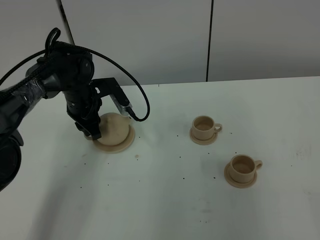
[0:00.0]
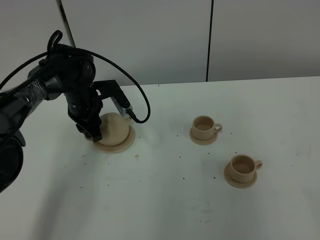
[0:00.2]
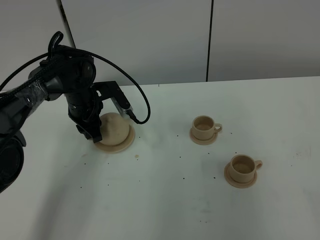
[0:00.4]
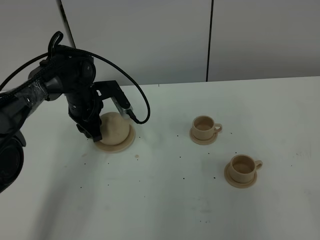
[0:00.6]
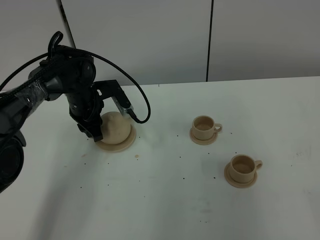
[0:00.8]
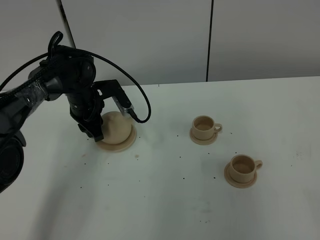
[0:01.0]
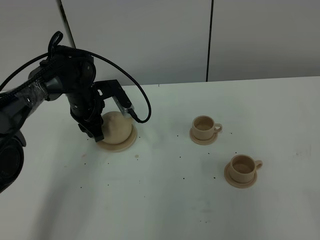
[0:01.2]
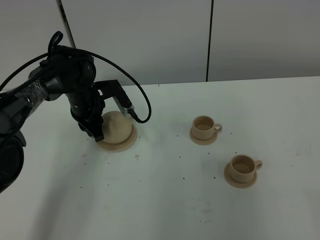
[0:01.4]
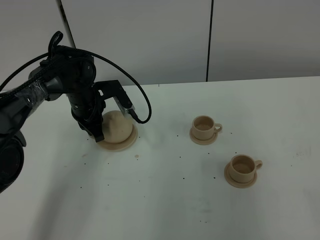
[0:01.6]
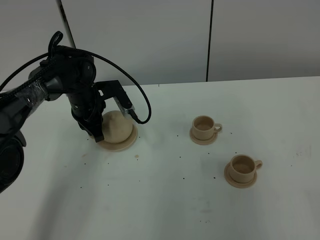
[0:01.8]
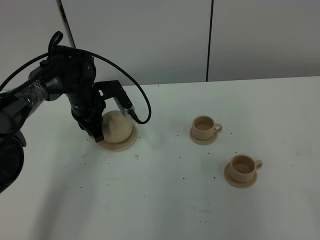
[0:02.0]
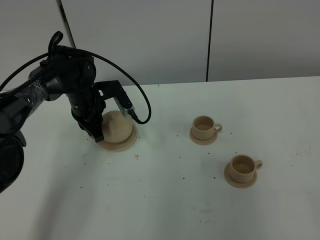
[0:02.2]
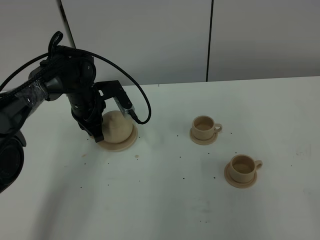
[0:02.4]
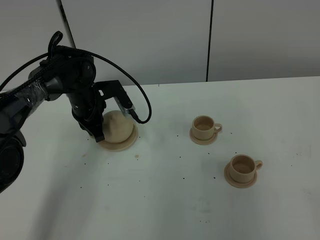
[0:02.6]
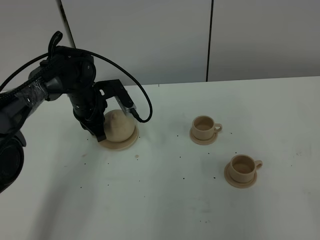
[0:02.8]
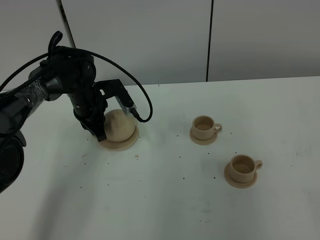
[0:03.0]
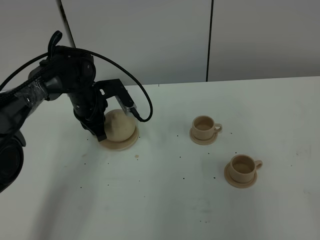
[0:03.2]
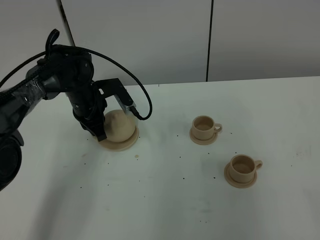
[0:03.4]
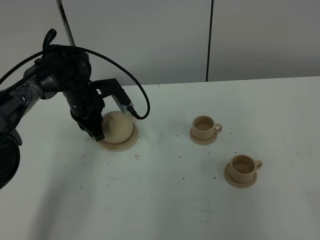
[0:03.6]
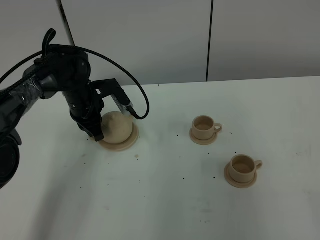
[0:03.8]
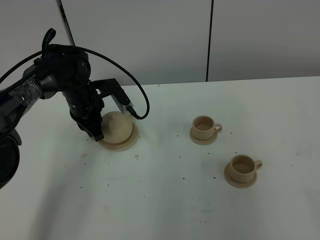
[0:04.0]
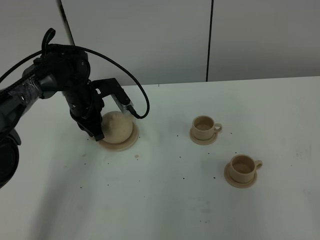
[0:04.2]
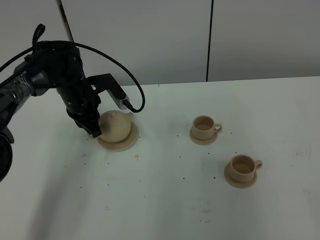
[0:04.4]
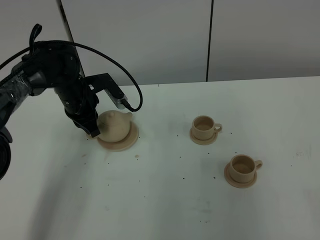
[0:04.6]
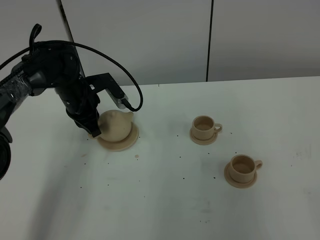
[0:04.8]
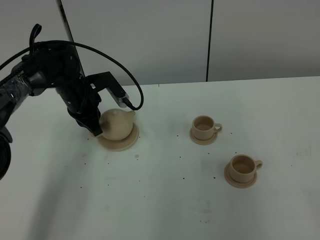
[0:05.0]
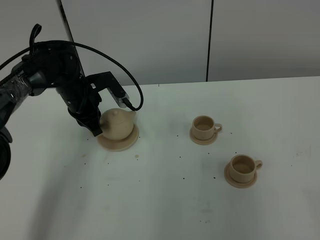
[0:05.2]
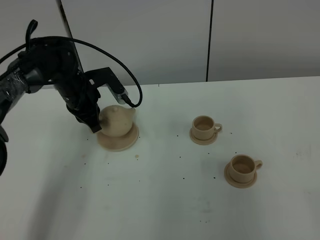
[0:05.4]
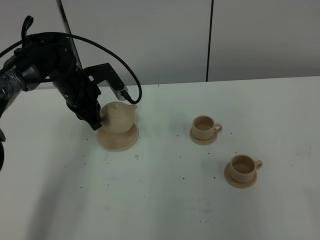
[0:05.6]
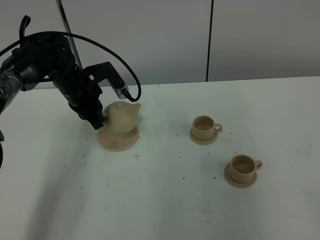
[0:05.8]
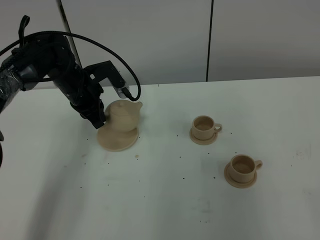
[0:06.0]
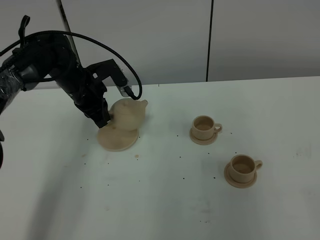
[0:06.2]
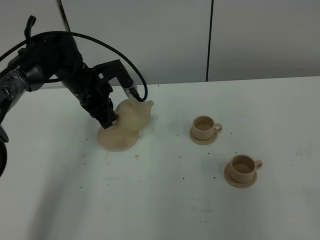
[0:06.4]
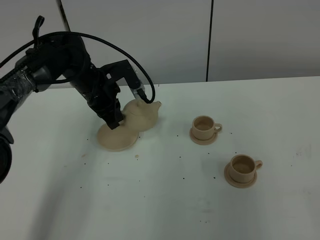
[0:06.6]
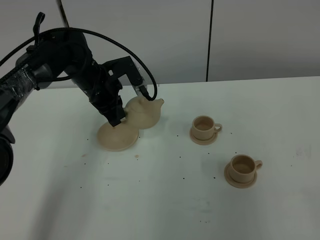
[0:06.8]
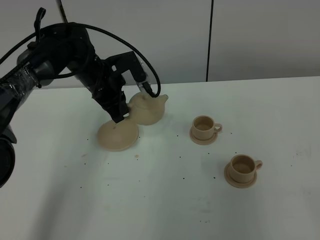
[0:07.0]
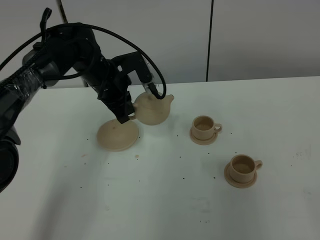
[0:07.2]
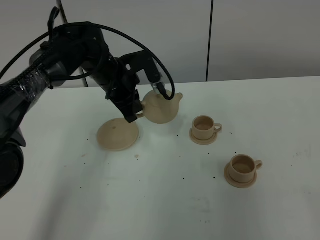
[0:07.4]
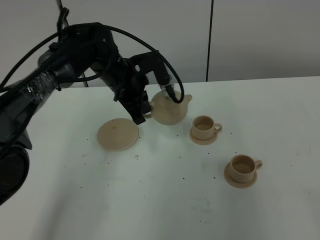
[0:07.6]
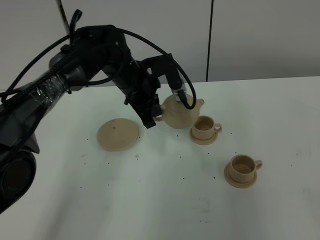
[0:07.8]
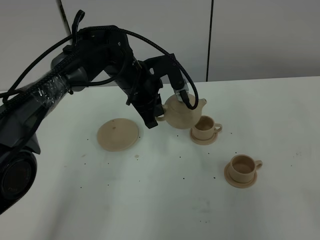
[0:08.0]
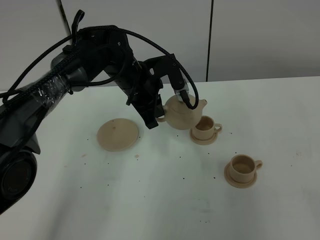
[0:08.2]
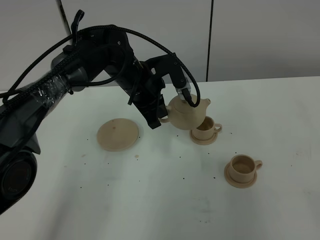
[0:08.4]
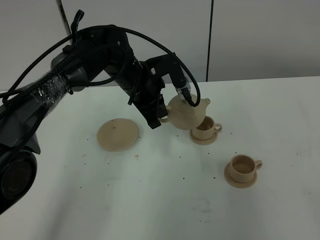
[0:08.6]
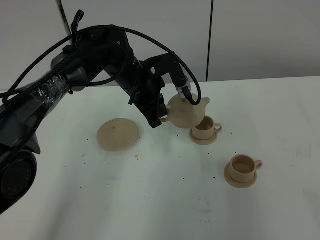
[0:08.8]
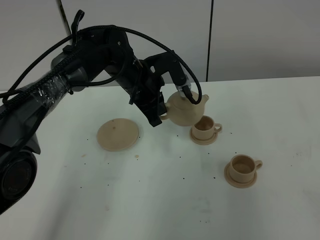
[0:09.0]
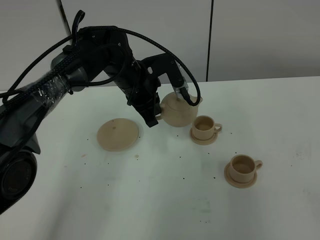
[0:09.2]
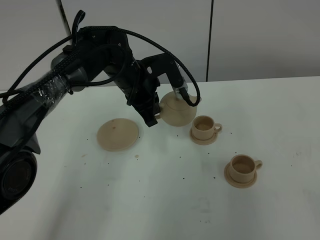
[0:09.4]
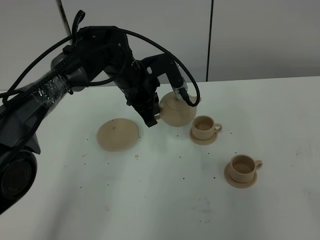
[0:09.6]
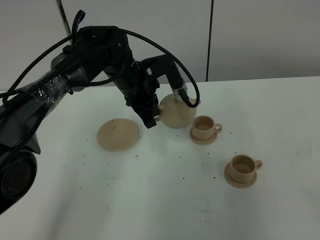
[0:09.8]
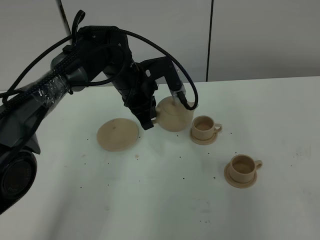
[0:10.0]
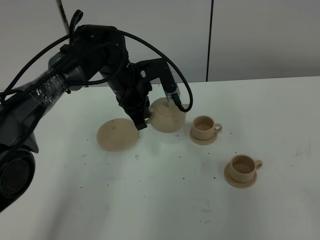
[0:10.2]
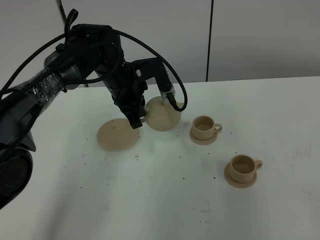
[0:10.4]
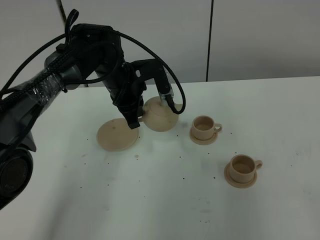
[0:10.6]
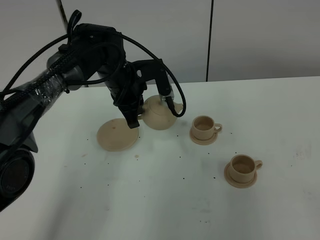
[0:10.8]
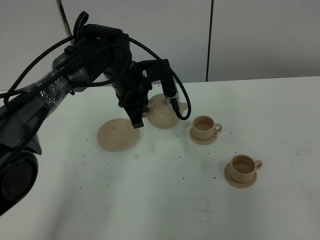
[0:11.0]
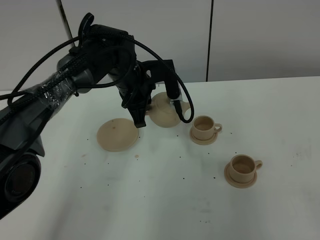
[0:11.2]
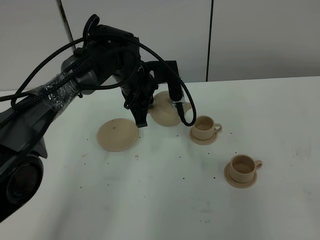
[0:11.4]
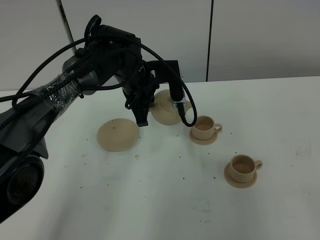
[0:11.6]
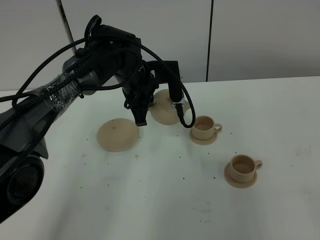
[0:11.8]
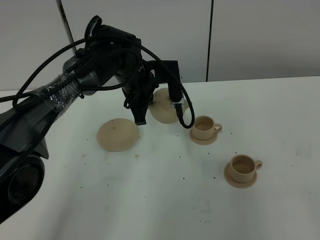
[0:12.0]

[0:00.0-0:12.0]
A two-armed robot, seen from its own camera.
Task of the whole recording: grasp the brown teapot and pour the tea into the two brown teacups one by one, put the brown teapot back in its original place.
Step, 0:00.0 to 0:05.4: Pick up the teapot with the left gripper.
0:00.0 to 0:01.6: The left gripper closes.
0:01.6 to 0:03.0: Both grippers stay put.
0:03.0 to 0:06.0: There are only small adjustments of the grippers.
0:06.0 to 0:07.6: The left gripper is displaced to the right by about 10 cm.
0:07.6 to 0:10.4: The grippers make only small movements.
0:10.4 to 0:12.0: The grippers stay close to where they were, moving slightly.

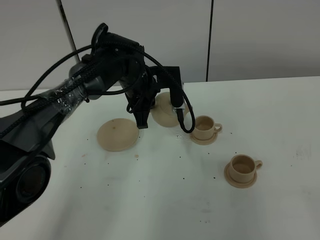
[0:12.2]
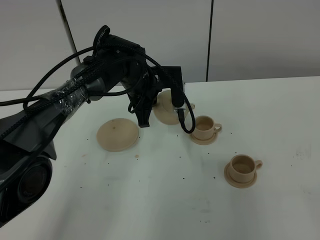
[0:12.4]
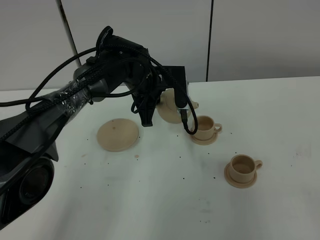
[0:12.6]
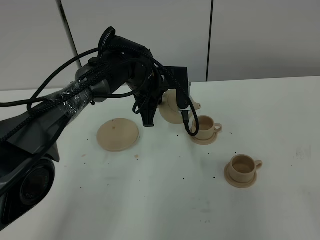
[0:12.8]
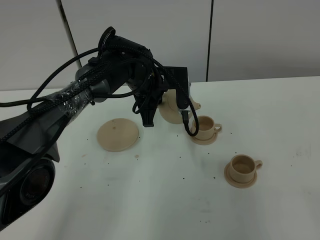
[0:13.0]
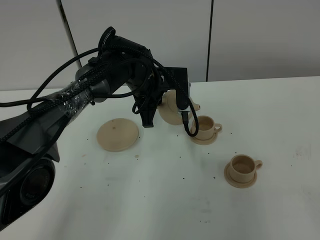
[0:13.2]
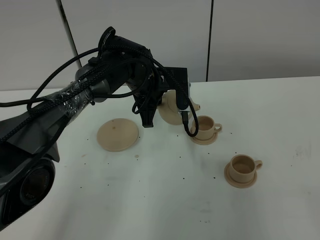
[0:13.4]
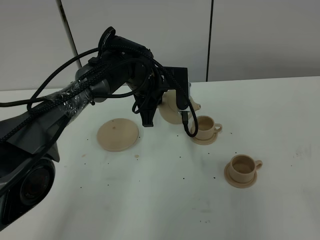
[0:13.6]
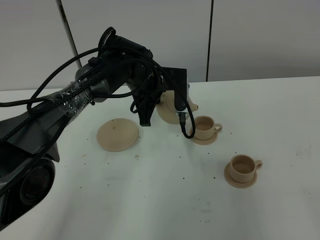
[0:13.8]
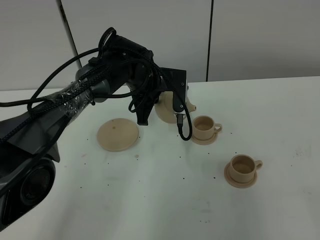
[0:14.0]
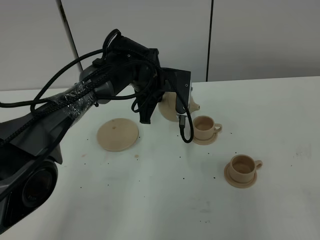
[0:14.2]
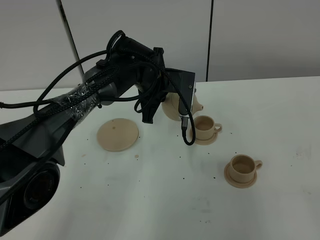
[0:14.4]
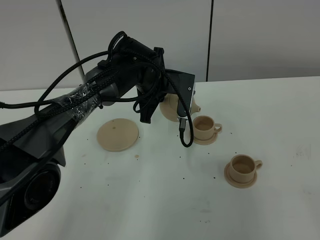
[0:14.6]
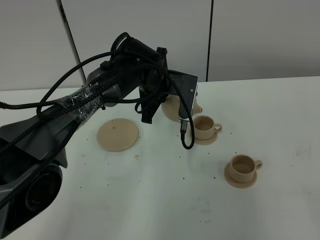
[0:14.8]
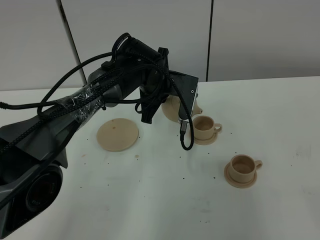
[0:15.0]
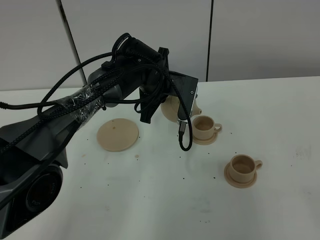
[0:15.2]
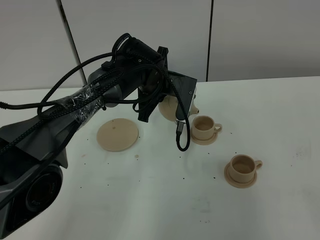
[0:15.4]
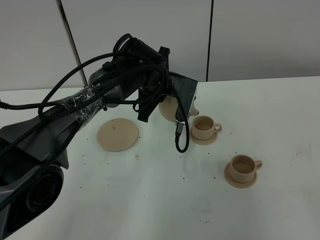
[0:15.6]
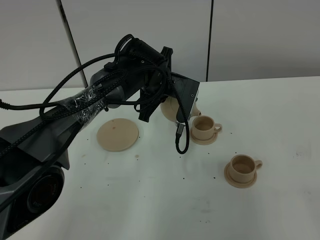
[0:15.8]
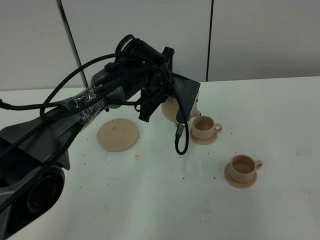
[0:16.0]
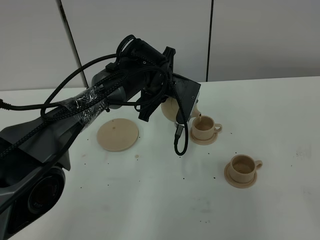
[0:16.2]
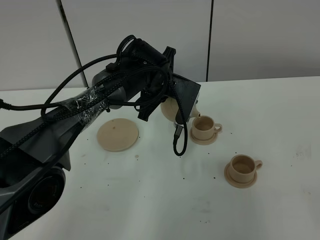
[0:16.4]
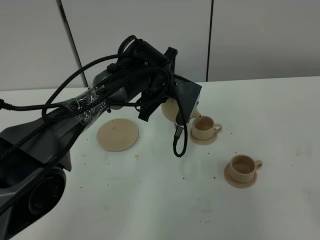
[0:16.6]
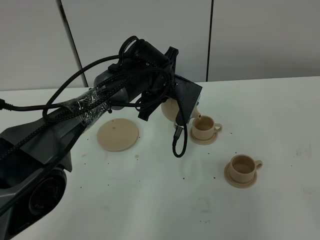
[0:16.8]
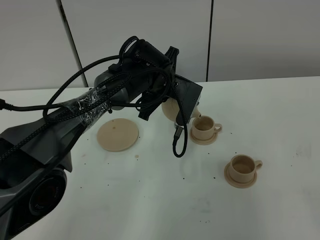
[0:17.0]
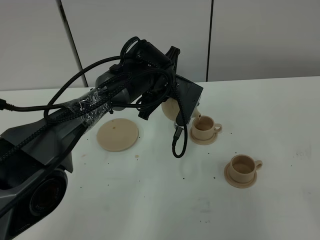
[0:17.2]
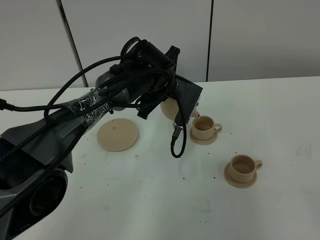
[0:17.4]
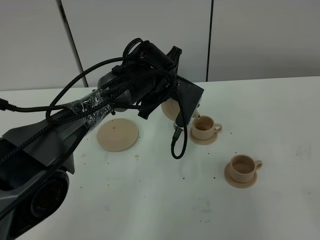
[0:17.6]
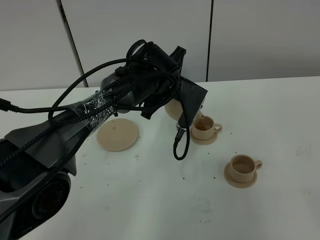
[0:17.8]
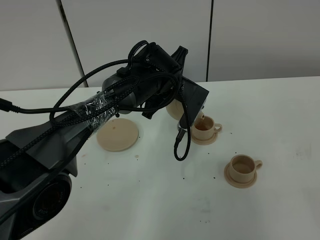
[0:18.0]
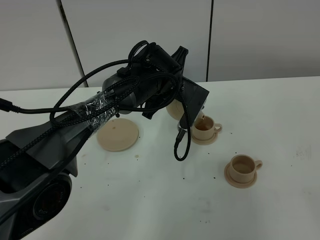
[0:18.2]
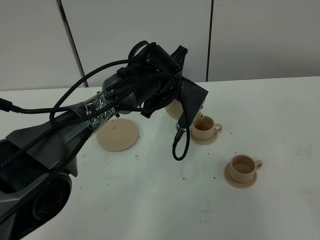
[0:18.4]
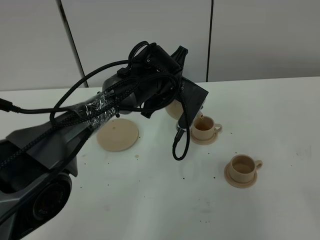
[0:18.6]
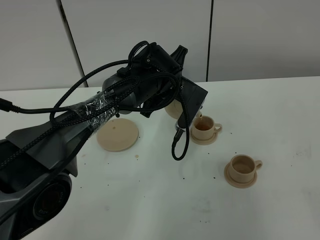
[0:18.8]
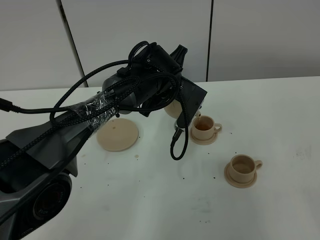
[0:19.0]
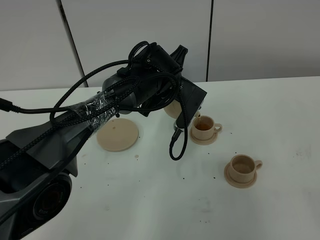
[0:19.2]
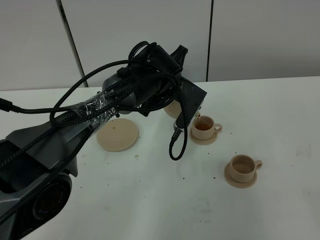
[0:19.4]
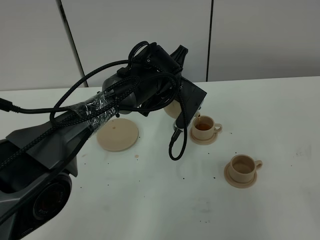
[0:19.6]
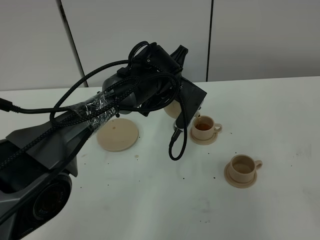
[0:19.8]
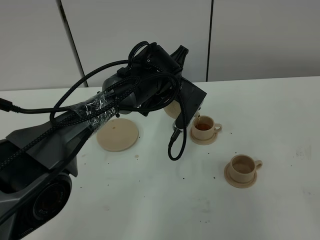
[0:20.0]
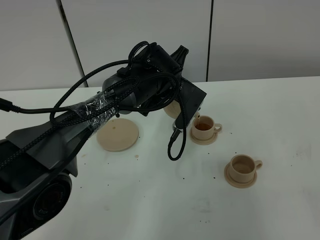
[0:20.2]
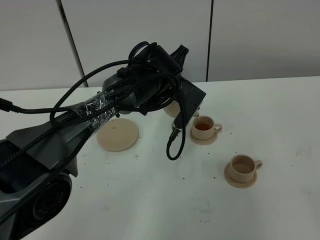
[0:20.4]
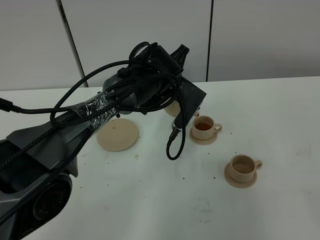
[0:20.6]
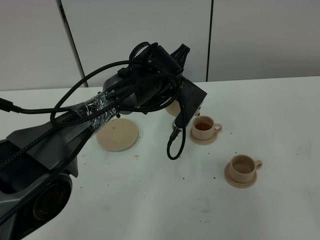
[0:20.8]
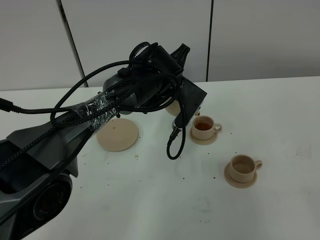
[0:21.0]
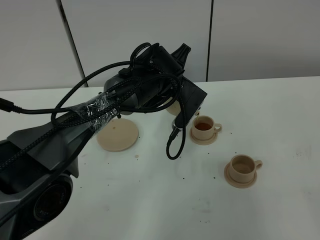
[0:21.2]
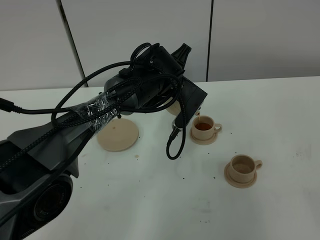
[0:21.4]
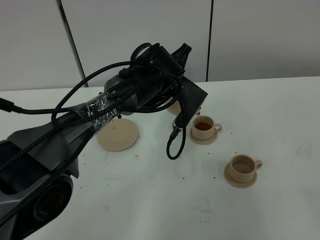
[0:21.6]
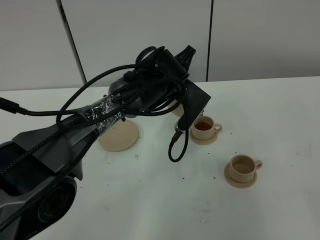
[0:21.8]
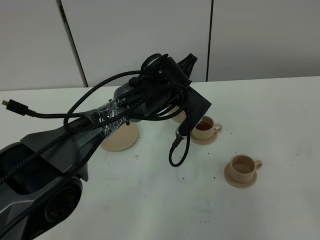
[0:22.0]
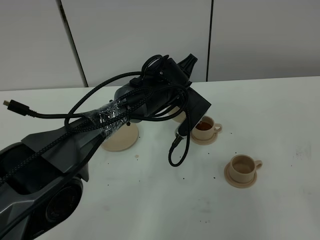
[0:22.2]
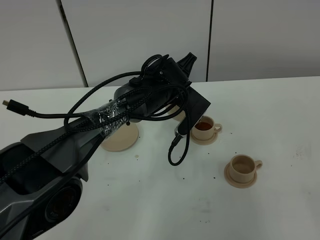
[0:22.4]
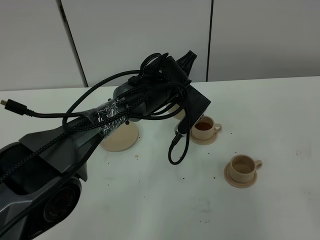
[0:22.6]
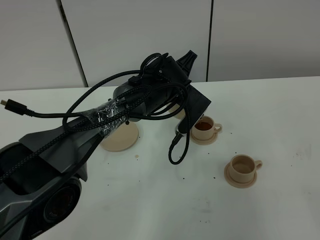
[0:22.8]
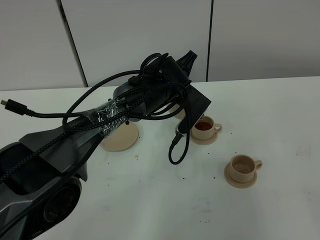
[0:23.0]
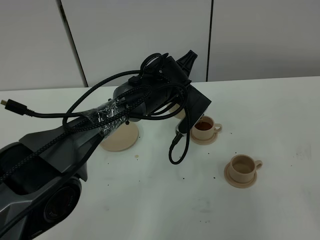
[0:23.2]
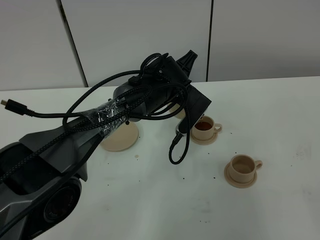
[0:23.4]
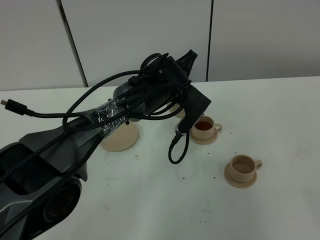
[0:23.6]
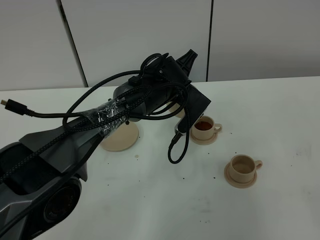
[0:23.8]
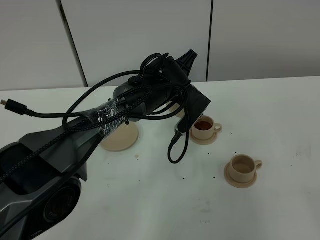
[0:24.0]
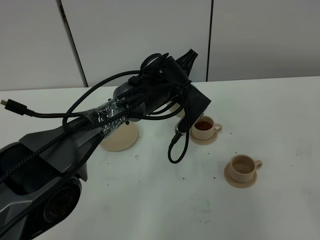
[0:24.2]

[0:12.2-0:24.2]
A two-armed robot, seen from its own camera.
Task of the whole recording: grasp the brown teapot and pour the tea into the two brown teacups one by one, put the brown teapot back in its original place.
0:12.2 to 0:13.8: The grippers make only small movements.
0:13.8 to 0:15.2: The grippers move only a little.
0:15.2 to 0:18.2: The grippers make only small movements.
0:18.2 to 0:19.8: The two grippers keep their place.
0:19.8 to 0:21.2: Both grippers stay put.
0:21.2 to 0:22.6: The grippers move only a little.
0:22.6 to 0:24.2: The two grippers keep their place.
